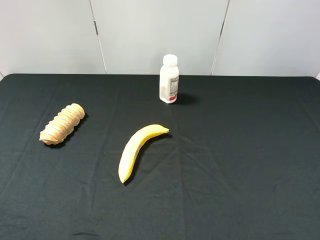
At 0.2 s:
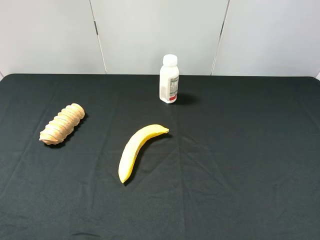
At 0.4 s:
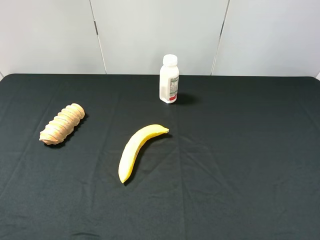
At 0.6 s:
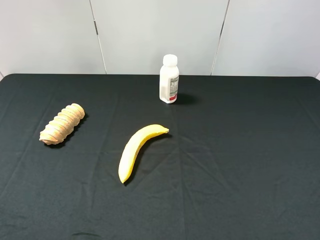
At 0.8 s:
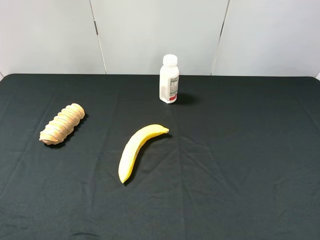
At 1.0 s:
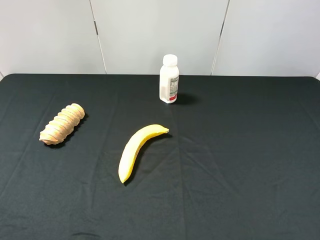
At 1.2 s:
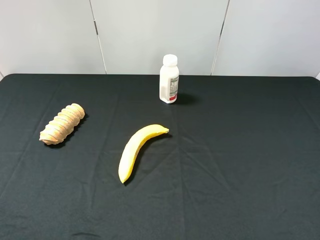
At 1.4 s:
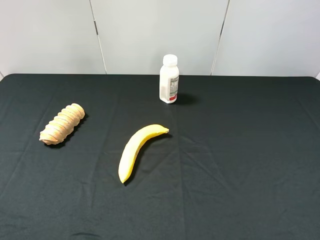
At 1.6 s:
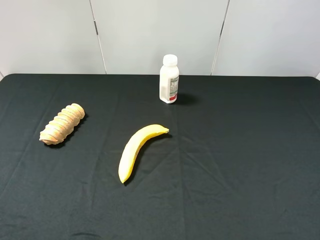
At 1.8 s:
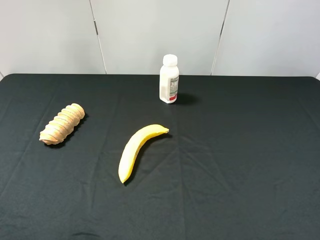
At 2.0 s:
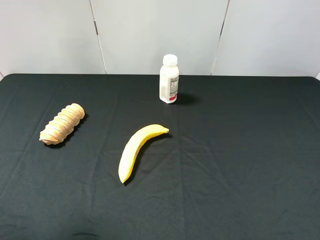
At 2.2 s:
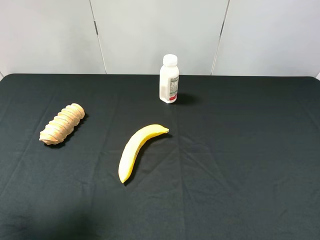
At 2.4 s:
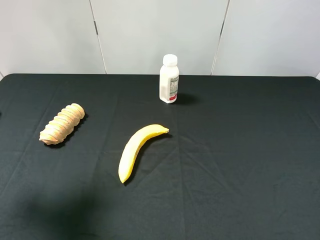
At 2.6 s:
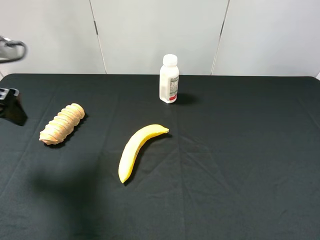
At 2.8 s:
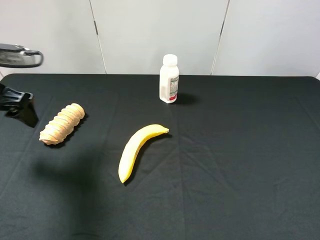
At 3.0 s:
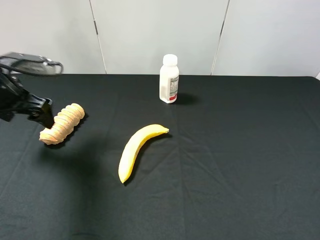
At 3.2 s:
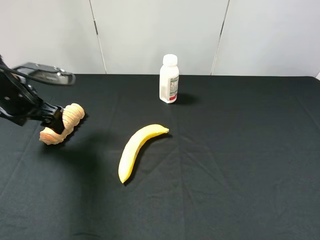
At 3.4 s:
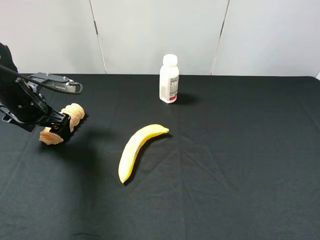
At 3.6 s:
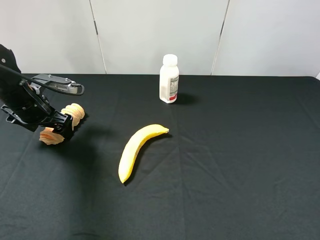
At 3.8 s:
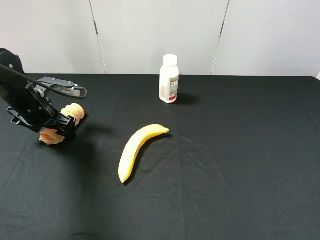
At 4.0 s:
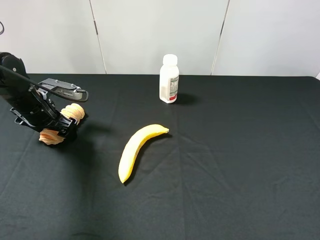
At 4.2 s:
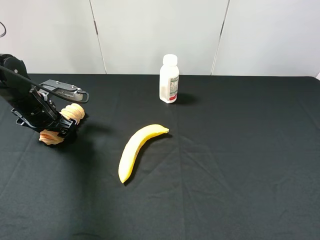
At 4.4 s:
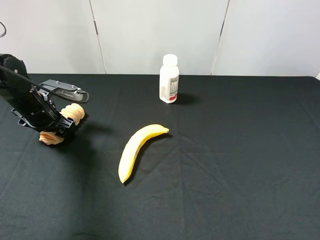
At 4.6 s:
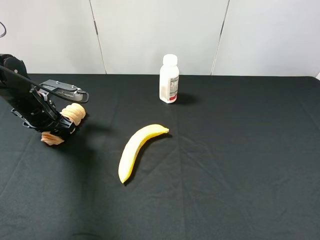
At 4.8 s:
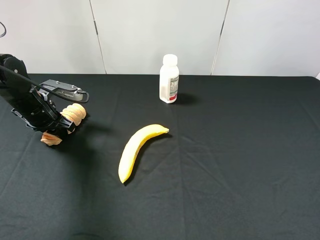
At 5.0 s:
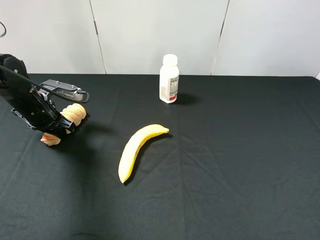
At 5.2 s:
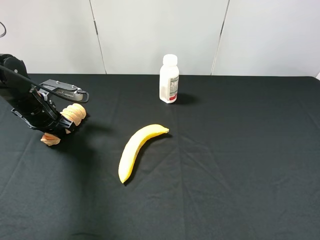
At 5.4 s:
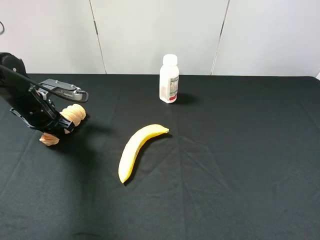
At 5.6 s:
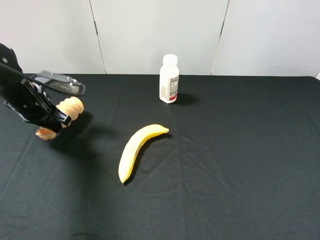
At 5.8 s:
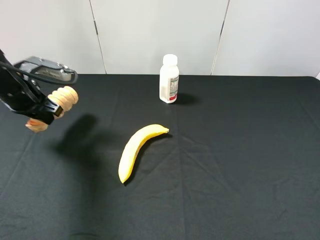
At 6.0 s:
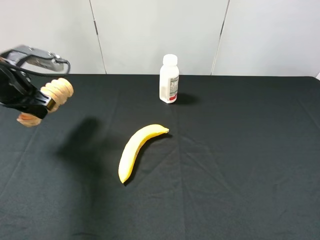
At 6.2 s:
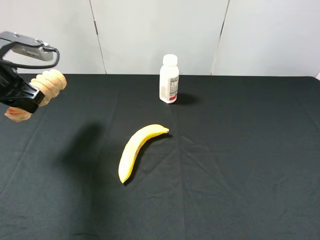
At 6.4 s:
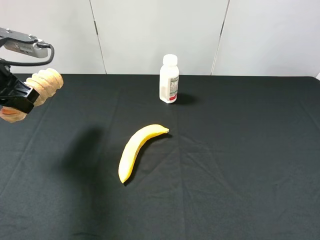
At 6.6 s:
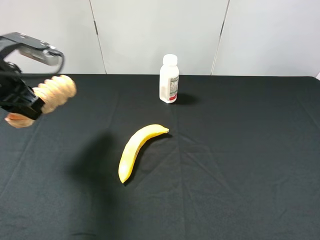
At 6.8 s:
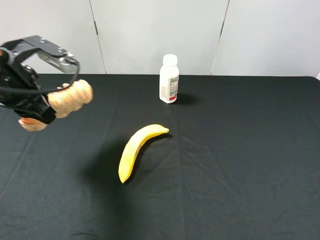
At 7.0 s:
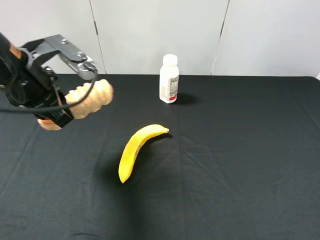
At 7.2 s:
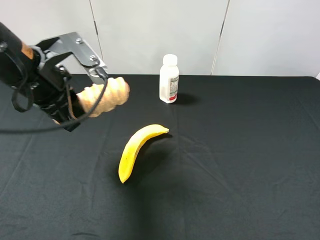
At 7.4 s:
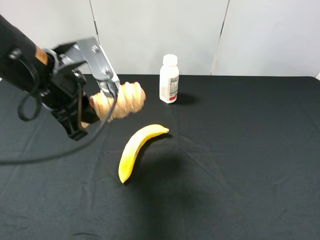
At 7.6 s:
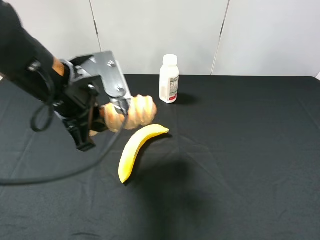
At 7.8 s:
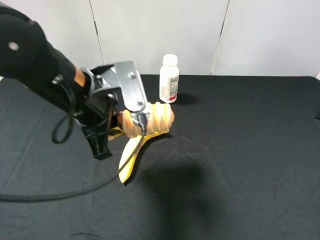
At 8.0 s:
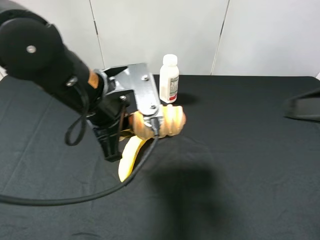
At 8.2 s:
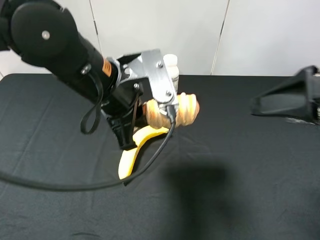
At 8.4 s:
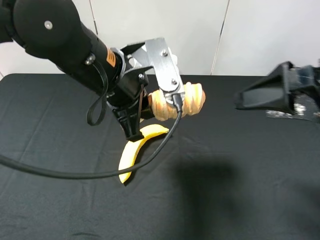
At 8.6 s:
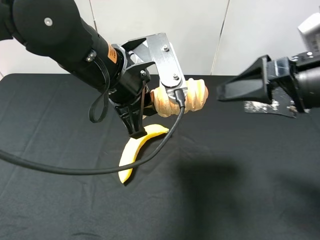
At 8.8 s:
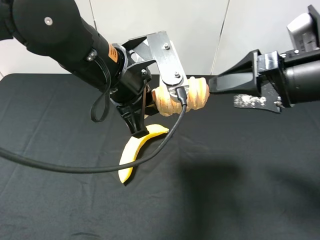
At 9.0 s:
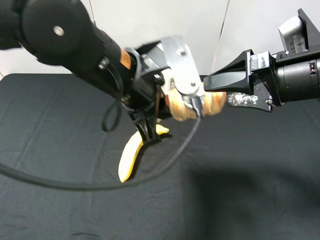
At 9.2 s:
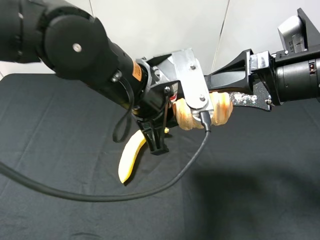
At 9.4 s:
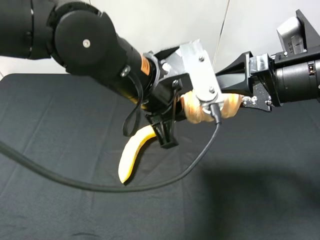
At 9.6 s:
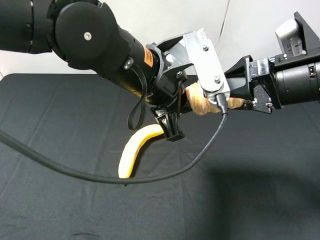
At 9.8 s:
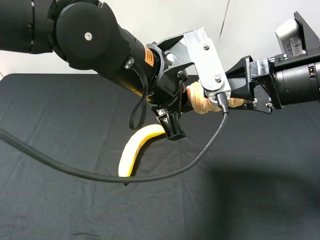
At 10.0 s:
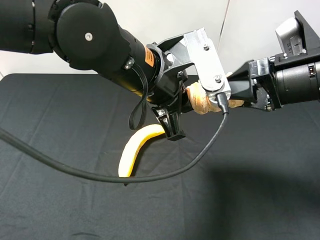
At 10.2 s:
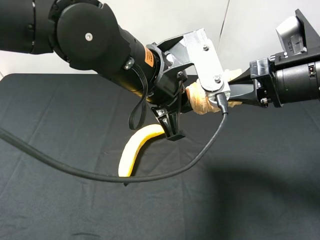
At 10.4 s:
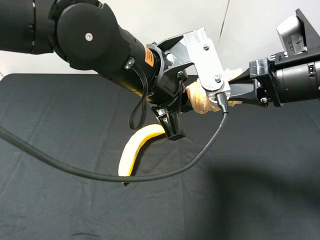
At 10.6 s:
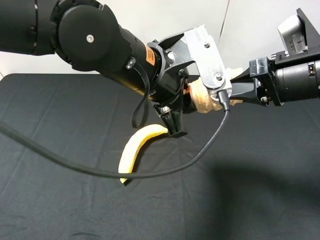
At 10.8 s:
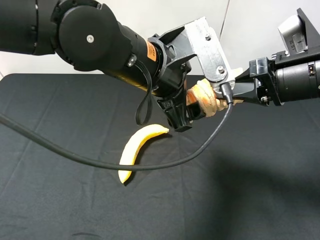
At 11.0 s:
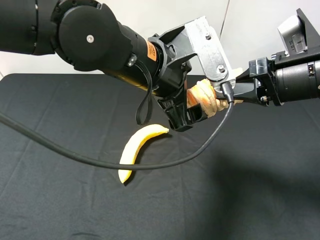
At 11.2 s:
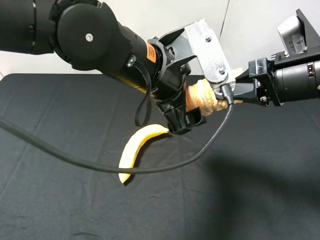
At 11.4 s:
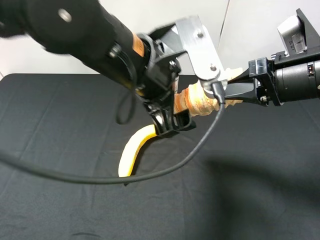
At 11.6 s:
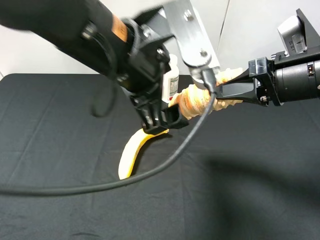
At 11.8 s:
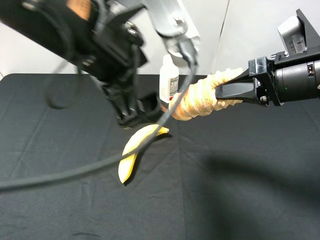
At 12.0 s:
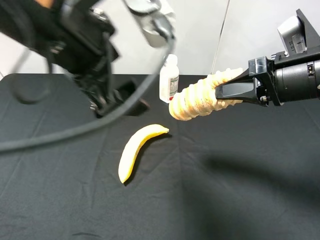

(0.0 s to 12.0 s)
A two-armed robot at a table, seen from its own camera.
Task of the whole recording: use the left gripper to pick up the item and transfer it from the left gripper to the right gripper.
1.6 s - 3.0 s: The left gripper shifts about 30 cm forward and downward.
3.0 s - 4.4 s: The left gripper goes roughly 10 cm downward.
4.4 s - 6.0 s: The left gripper goes roughly 10 cm upward, and closes.
6.0 s - 7.6 s: The right gripper moves approximately 5 cm. Meanwhile the left gripper is displaced to the right and backward by approximately 15 cm.
7.6 s - 9.0 s: The right gripper travels forward and to the left by about 20 cm. Meanwhile the left gripper travels to the right by roughly 10 cm.
9.0 s - 10.4 s: The right gripper closes.
10.4 s - 12.0 s: The left gripper heads upward and to the left, covering roughly 10 cm, and opens its fingers.

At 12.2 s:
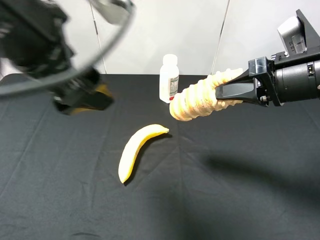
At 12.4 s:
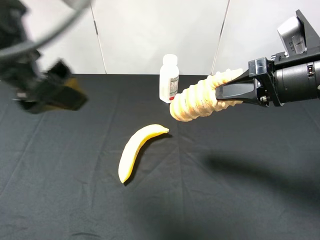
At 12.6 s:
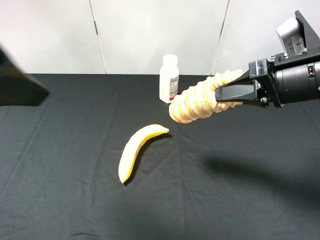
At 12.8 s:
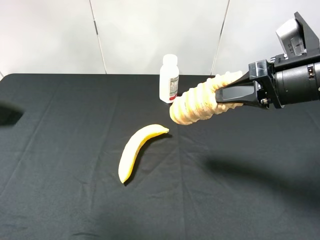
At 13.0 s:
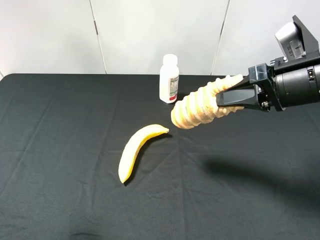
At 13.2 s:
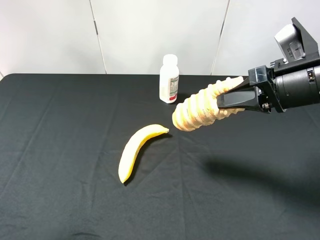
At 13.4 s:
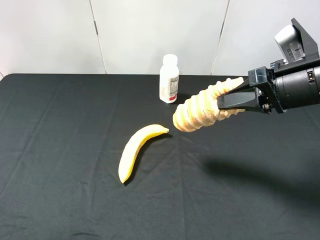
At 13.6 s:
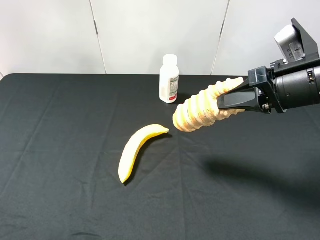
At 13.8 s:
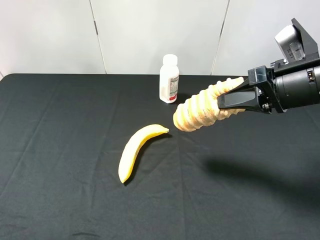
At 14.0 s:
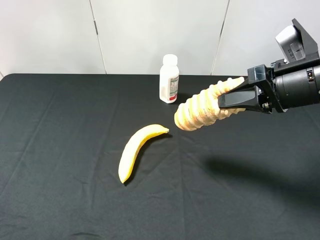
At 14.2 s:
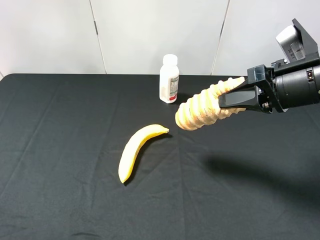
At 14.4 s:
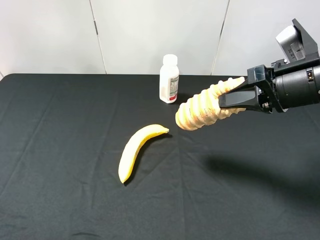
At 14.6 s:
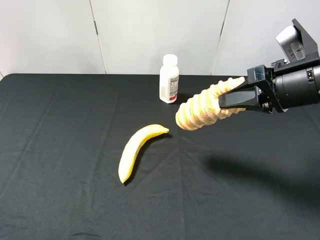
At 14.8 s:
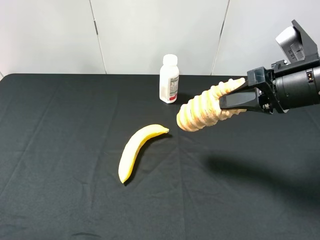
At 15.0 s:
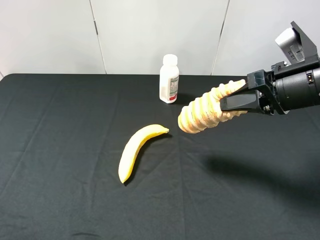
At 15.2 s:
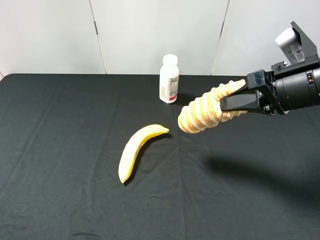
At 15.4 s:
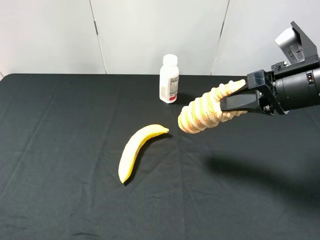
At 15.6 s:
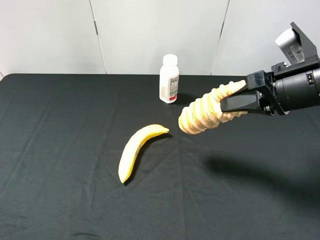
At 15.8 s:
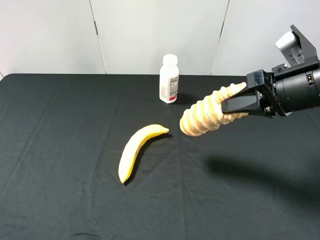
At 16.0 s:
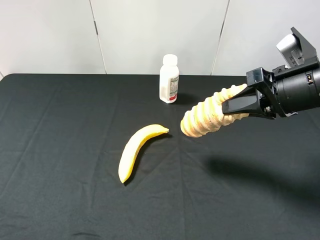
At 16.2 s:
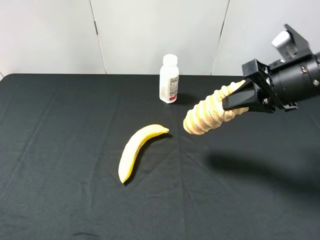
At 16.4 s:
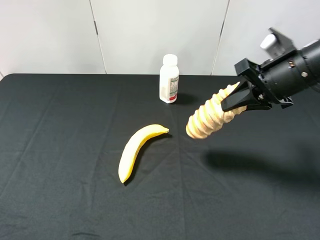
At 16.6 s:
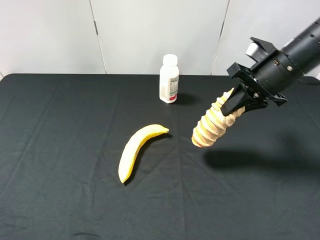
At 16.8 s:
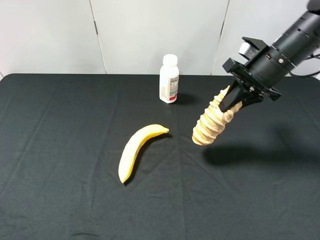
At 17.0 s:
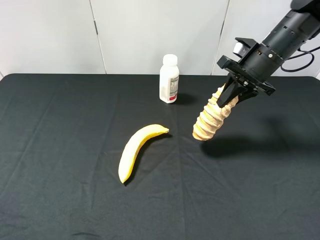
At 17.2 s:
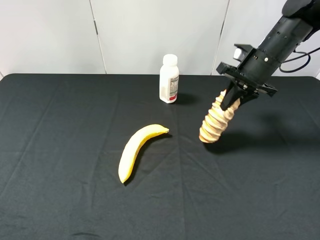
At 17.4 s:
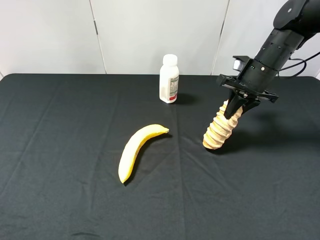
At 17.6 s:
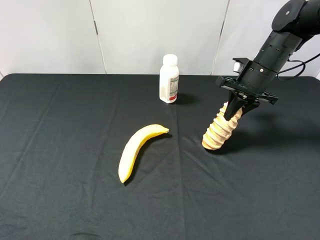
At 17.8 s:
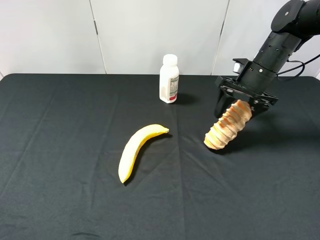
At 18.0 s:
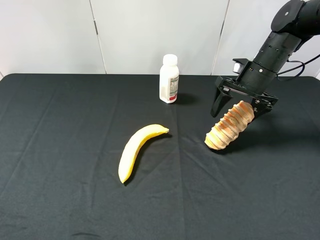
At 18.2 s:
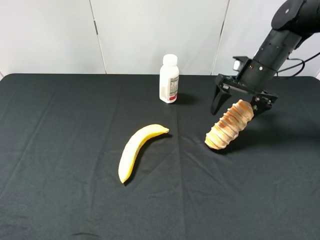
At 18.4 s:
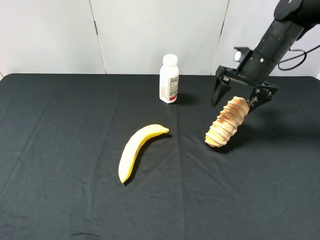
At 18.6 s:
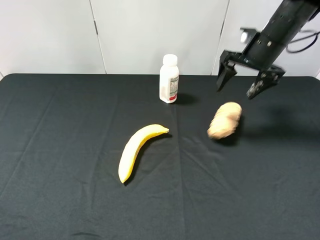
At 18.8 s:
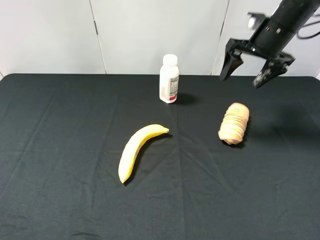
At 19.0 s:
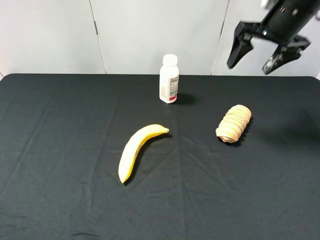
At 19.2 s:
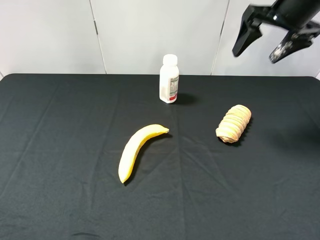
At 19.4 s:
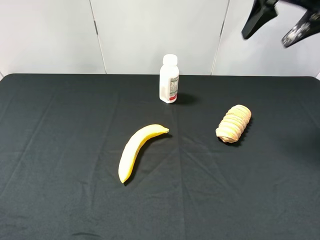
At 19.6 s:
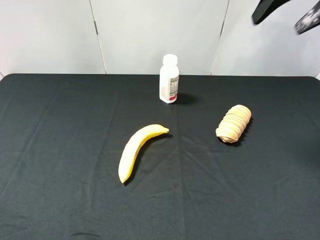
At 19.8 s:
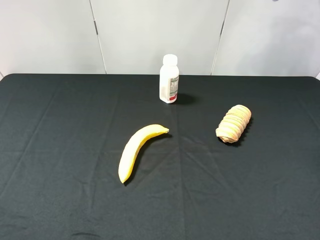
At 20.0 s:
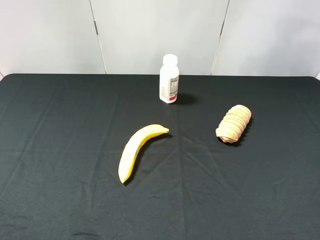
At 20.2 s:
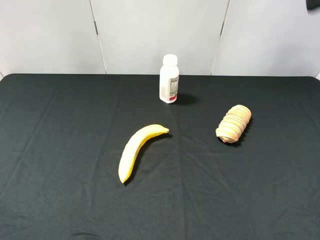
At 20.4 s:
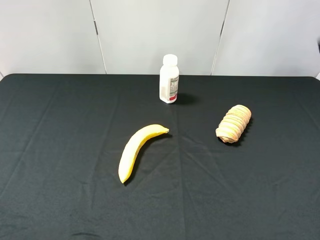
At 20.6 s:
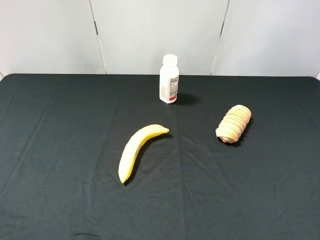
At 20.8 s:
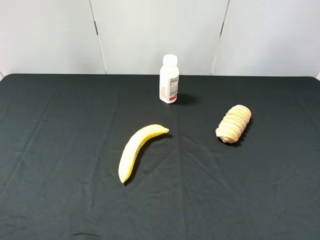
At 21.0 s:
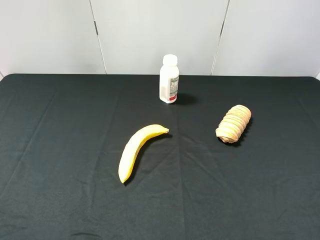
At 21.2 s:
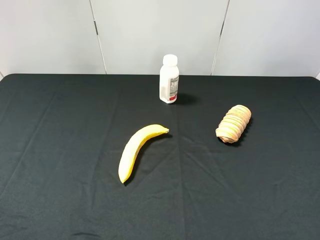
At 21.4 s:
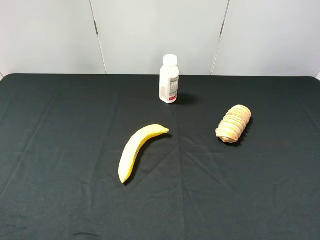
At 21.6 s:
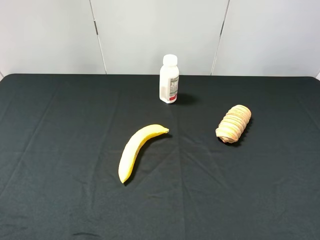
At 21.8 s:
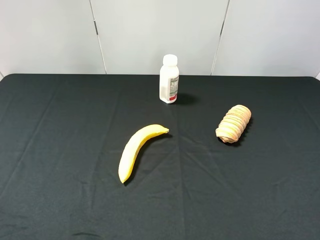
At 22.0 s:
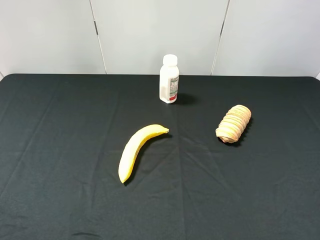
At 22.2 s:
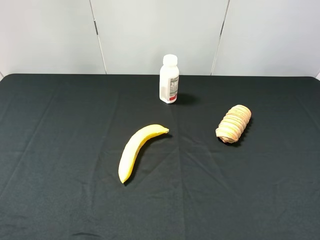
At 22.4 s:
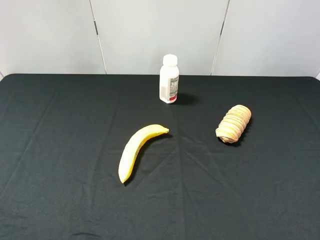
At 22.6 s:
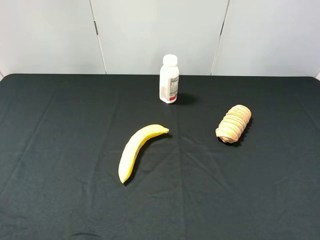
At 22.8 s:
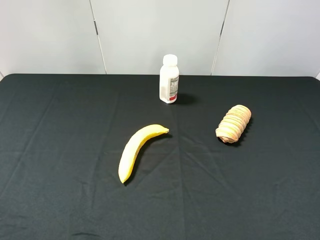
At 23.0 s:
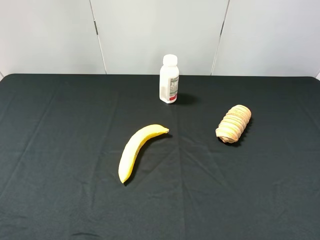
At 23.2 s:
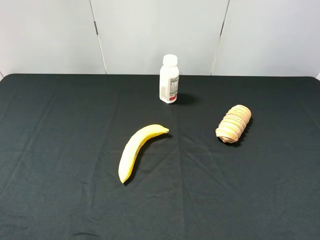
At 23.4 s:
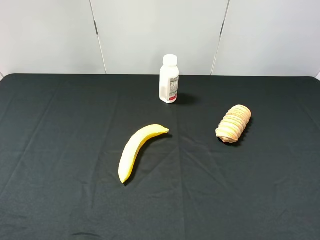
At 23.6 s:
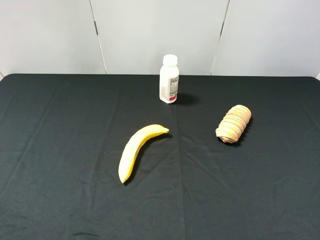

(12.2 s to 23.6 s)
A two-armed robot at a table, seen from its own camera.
Task of the whole recording: use the left gripper to pick up the item and transfer it from the left gripper to the right gripper.
12.2 s - 13.6 s: The left gripper travels to the left and backward by some 20 cm.
15.0 s - 16.4 s: The right gripper travels forward by approximately 5 cm.
16.4 s - 17.8 s: The right gripper is displaced forward and downward by some 15 cm, and opens its fingers.
17.8 s - 19.4 s: The right gripper heads upward, covering roughly 20 cm.
19.4 s - 20.8 s: The right gripper heads backward, covering approximately 30 cm.
22.2 s - 23.6 s: The two grippers keep their place.
